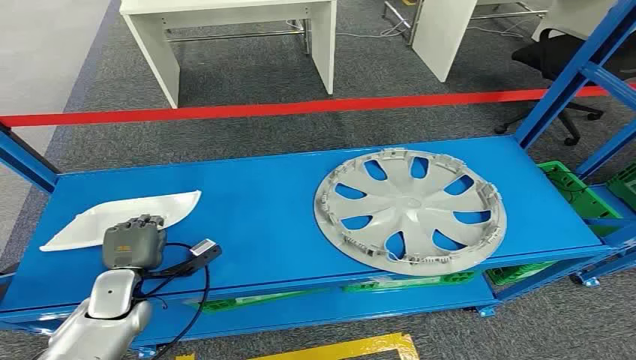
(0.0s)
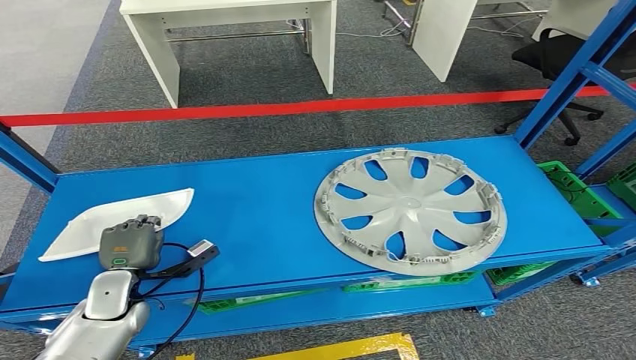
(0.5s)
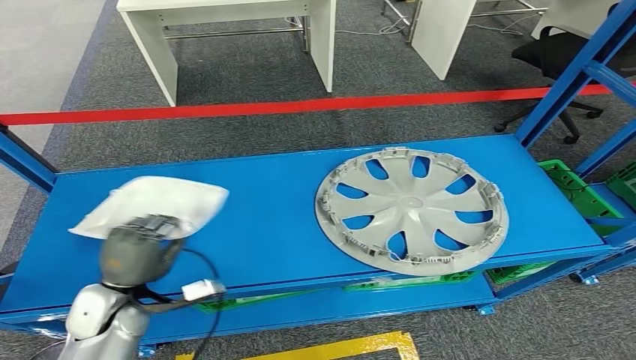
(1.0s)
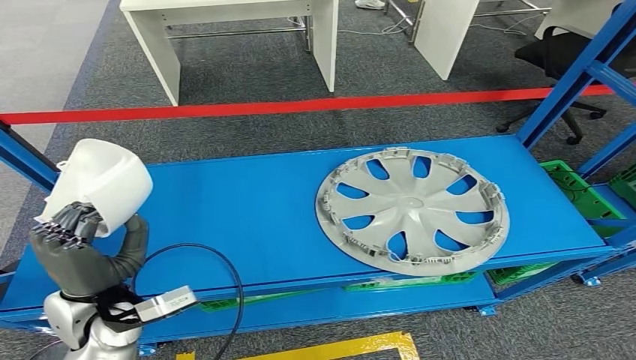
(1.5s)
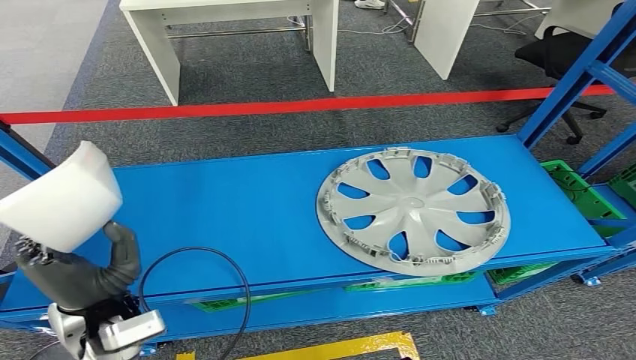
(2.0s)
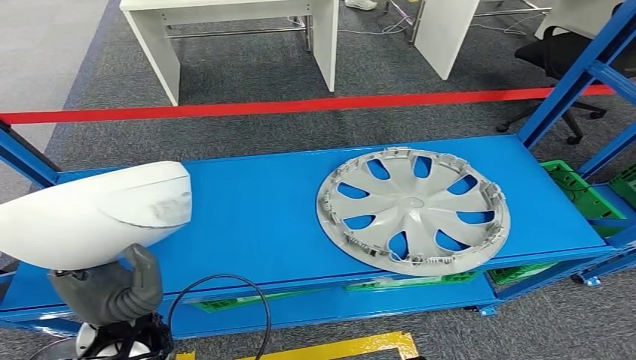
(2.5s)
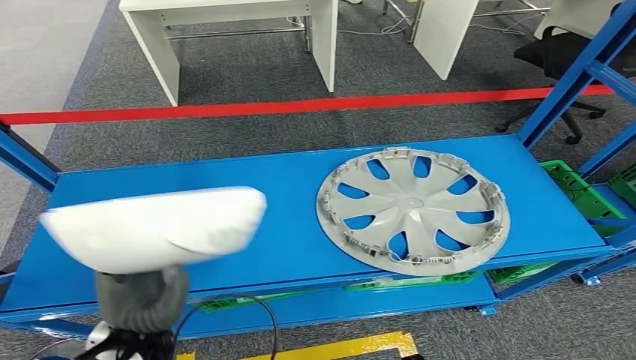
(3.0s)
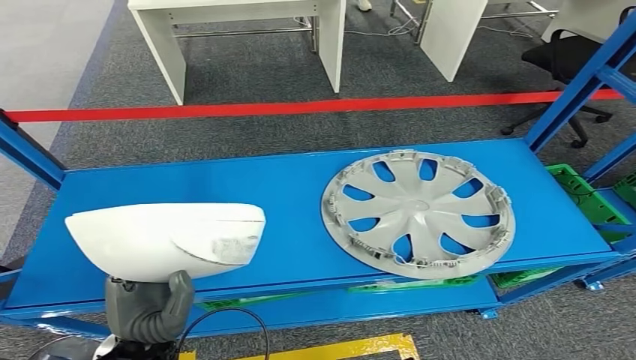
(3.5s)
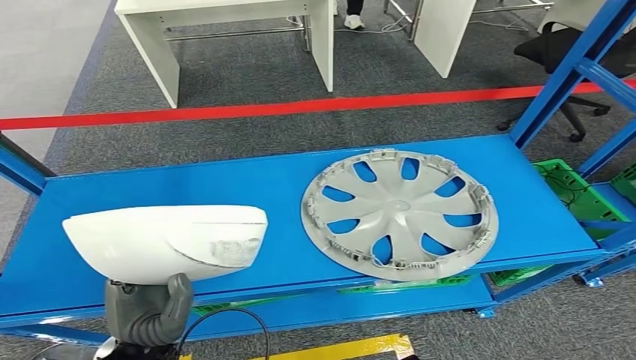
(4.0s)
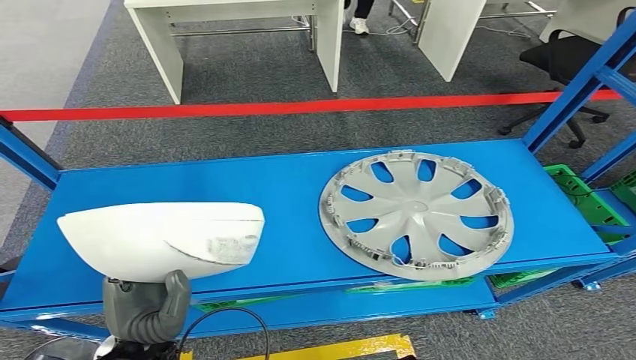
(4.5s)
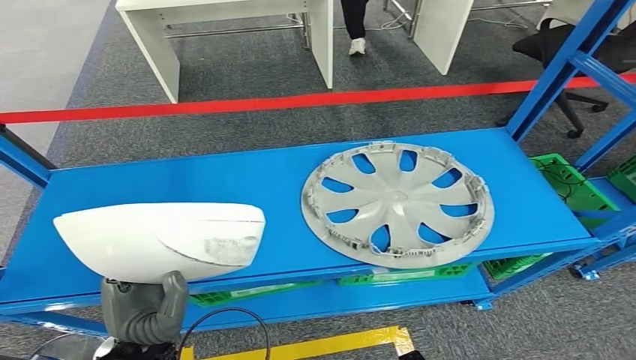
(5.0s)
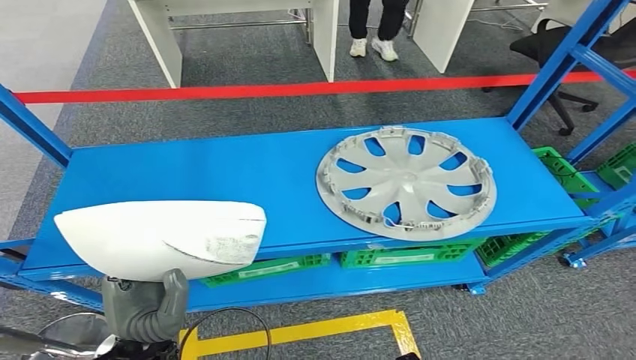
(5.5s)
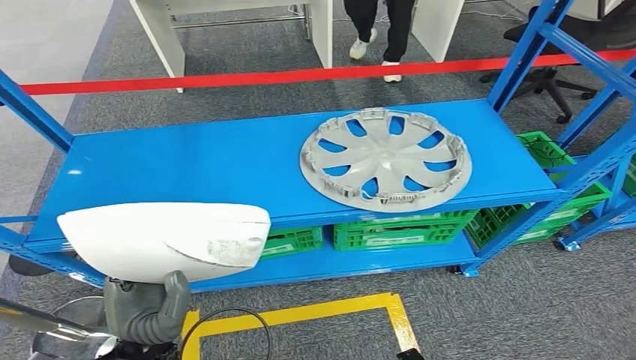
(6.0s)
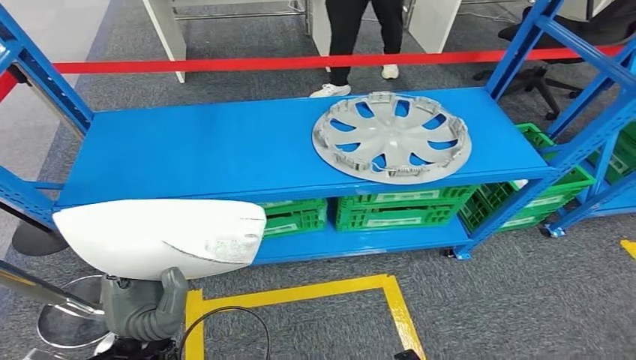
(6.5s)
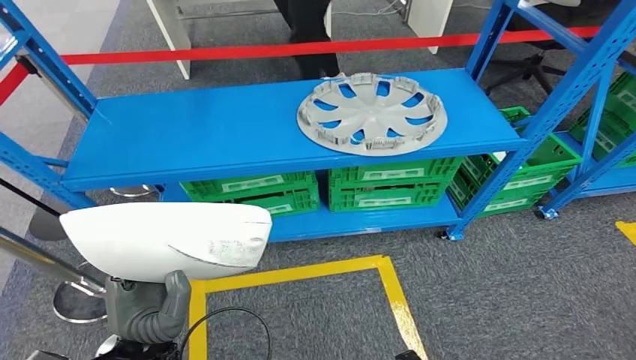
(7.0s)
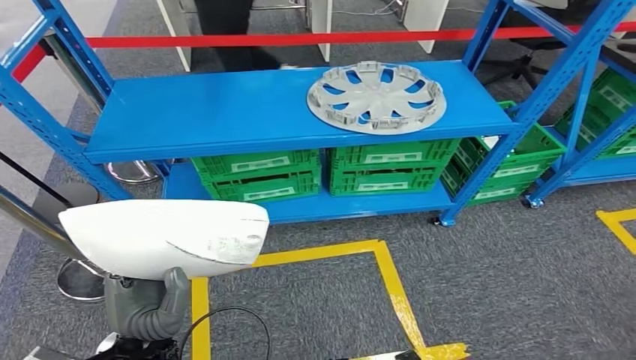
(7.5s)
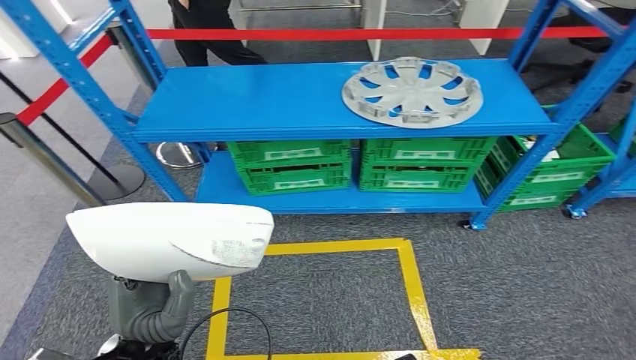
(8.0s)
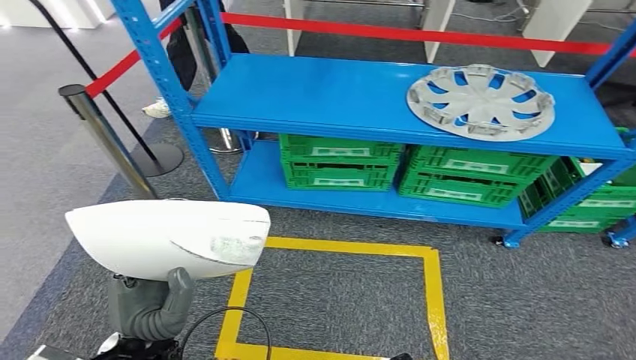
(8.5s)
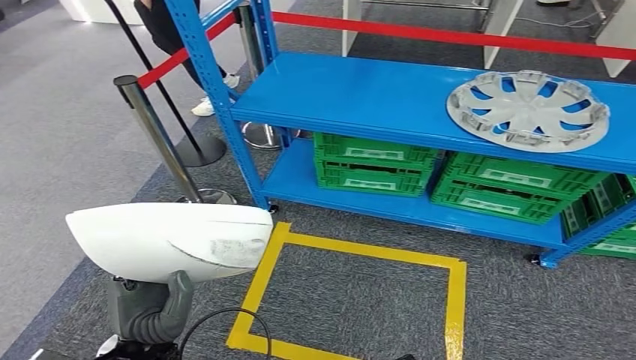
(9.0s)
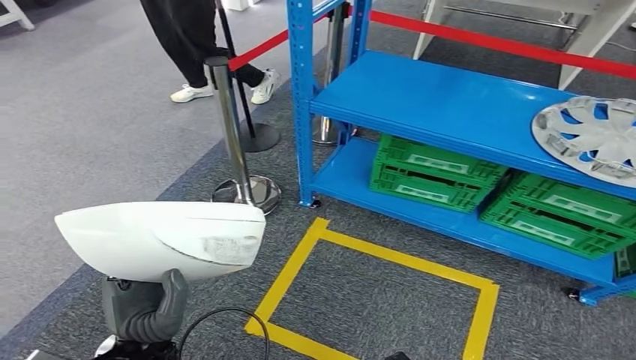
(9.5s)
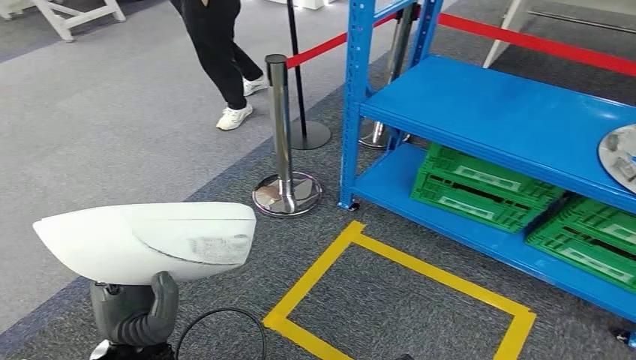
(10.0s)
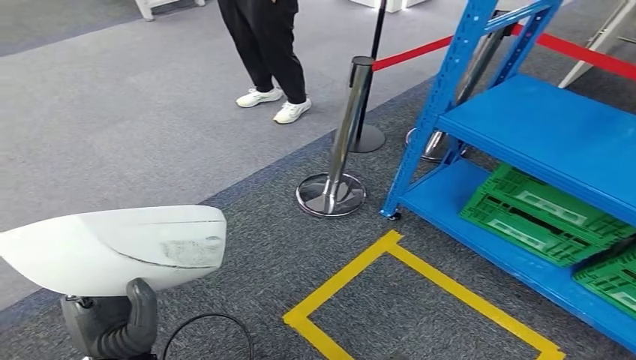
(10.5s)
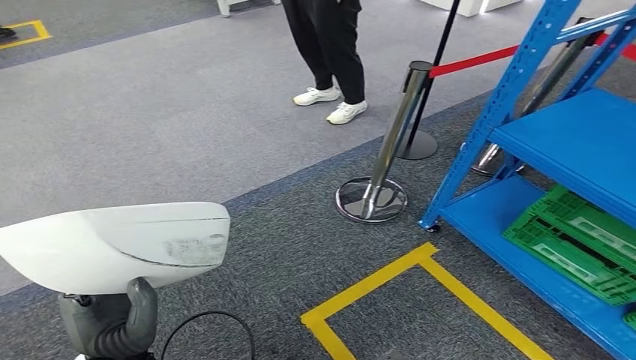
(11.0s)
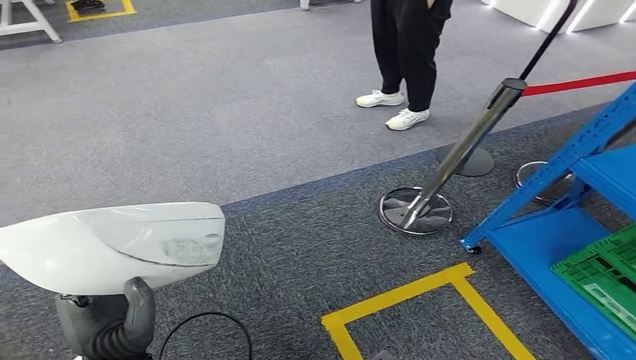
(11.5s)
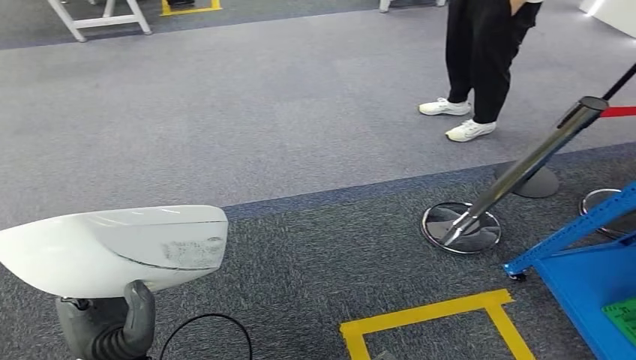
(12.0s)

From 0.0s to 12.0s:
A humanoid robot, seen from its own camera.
Step, from 0.0s to 3.5s: Pick up the small component from the shelf.

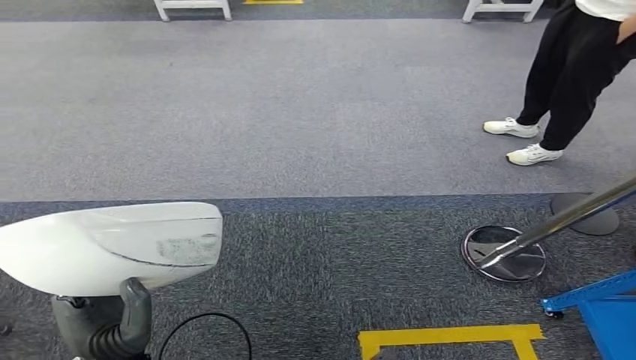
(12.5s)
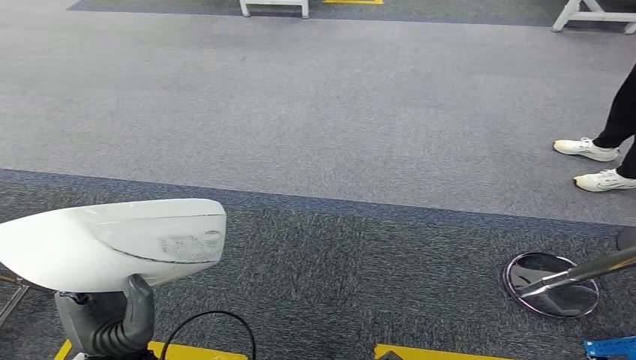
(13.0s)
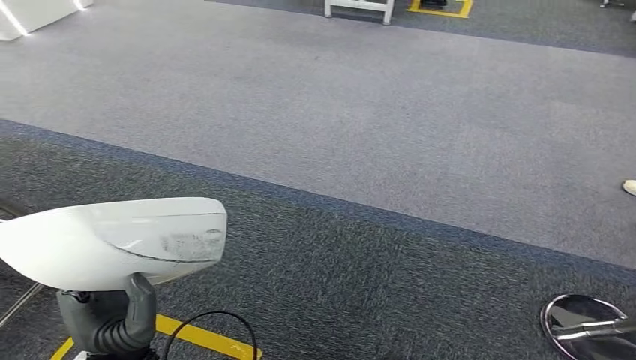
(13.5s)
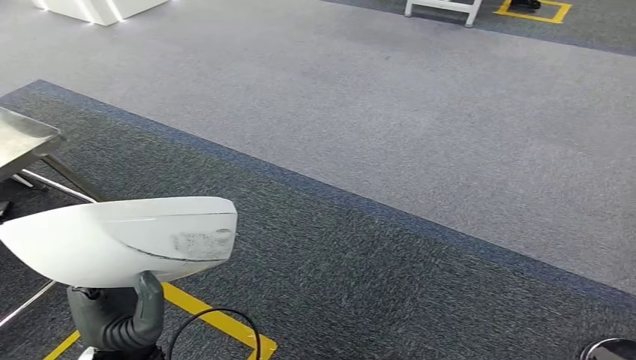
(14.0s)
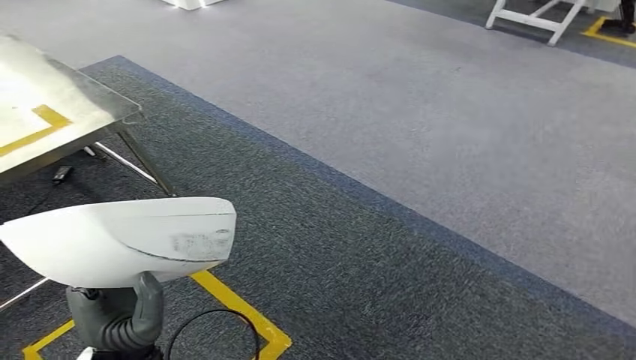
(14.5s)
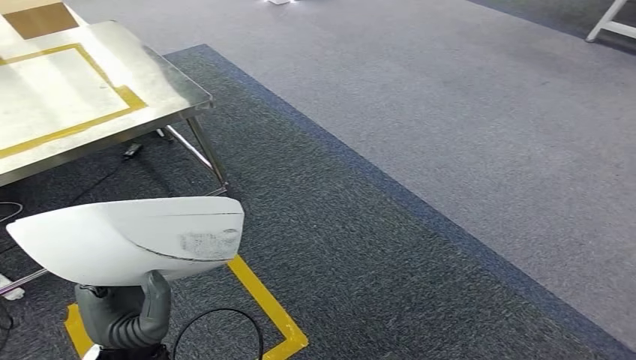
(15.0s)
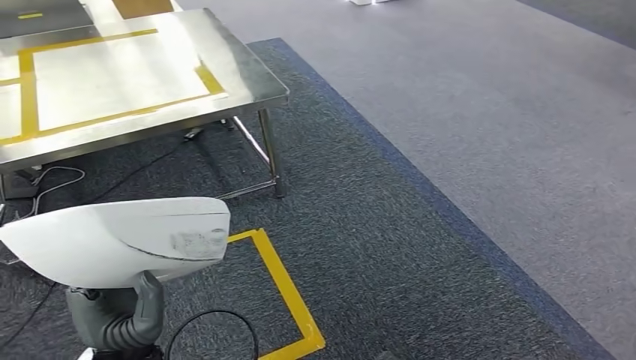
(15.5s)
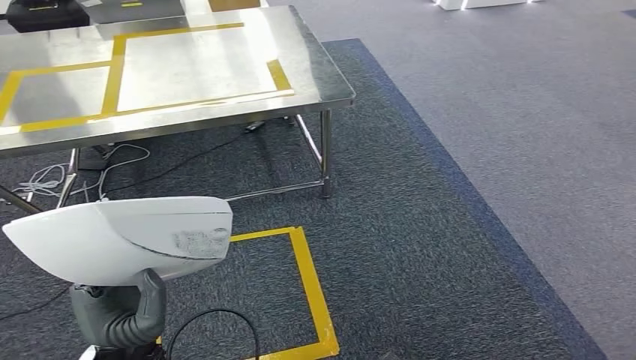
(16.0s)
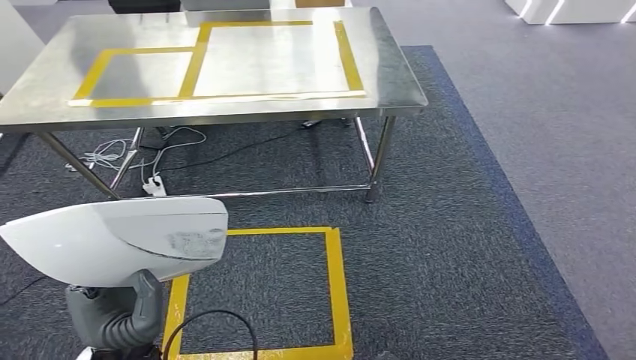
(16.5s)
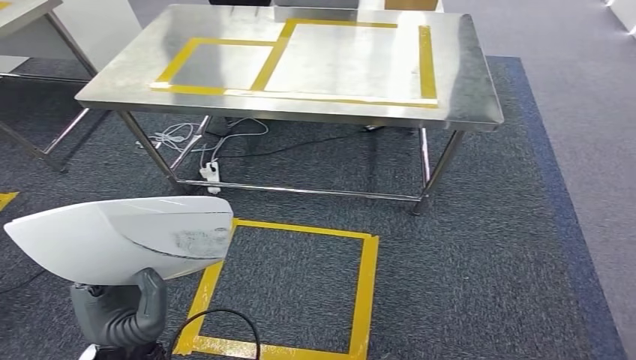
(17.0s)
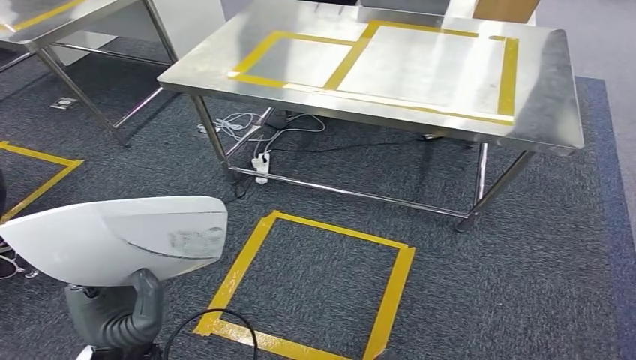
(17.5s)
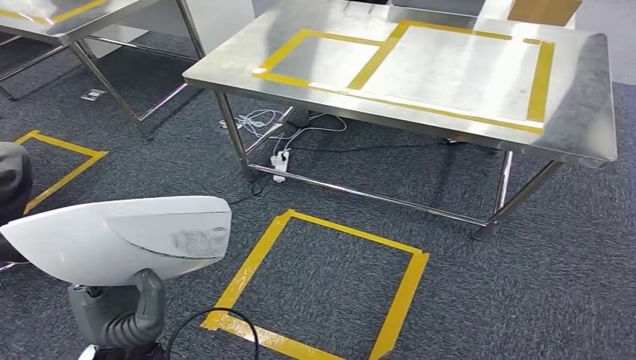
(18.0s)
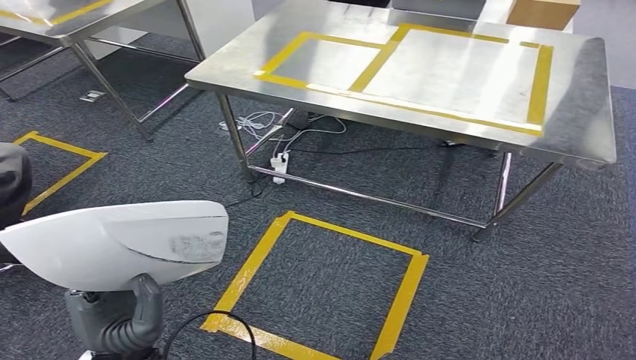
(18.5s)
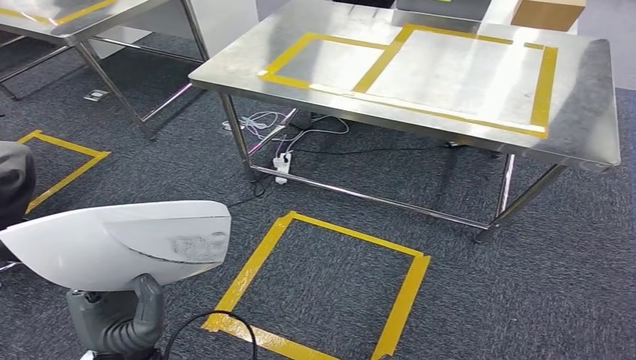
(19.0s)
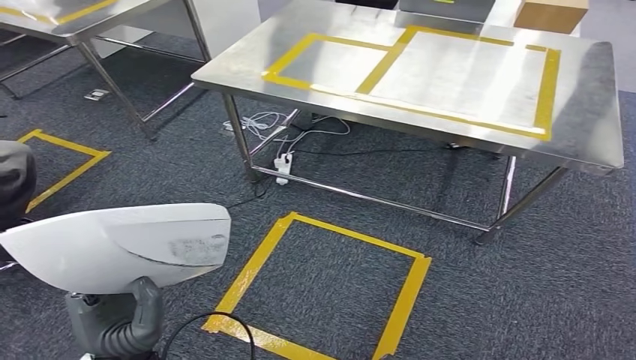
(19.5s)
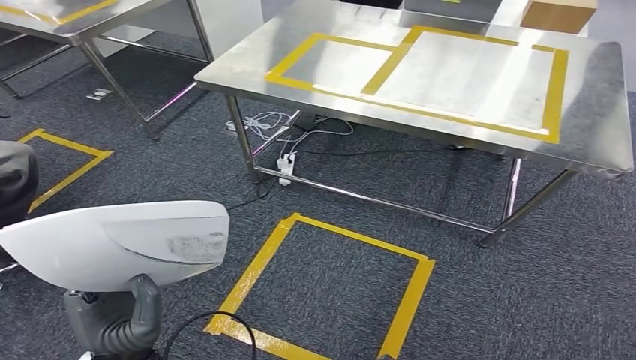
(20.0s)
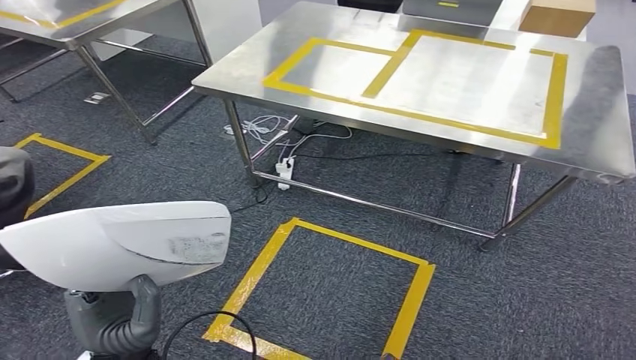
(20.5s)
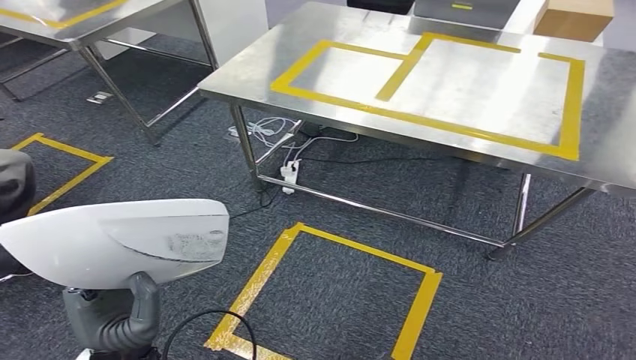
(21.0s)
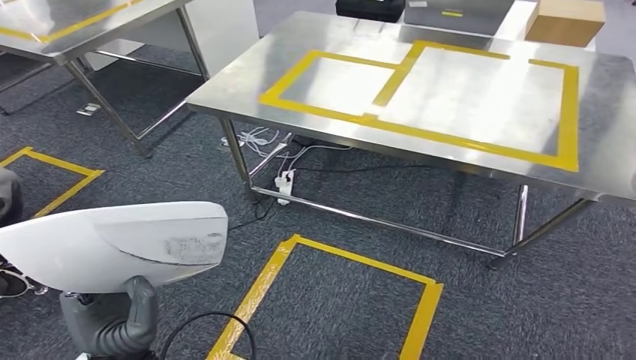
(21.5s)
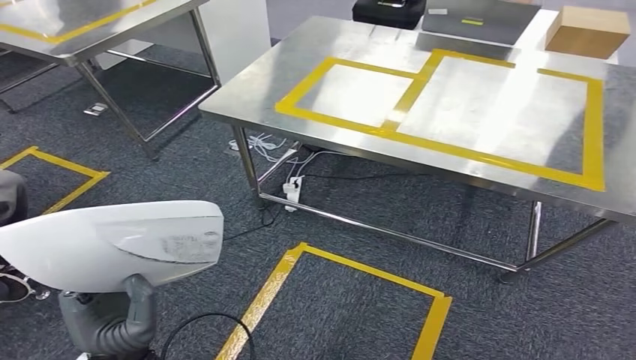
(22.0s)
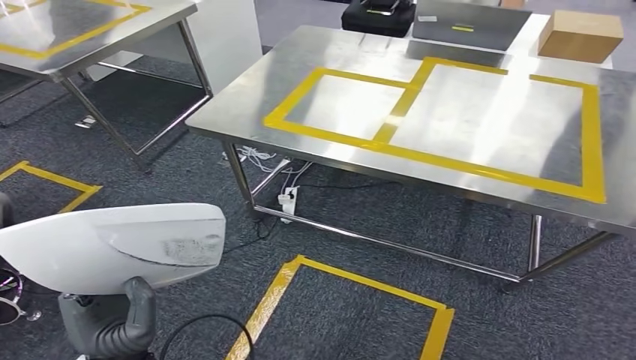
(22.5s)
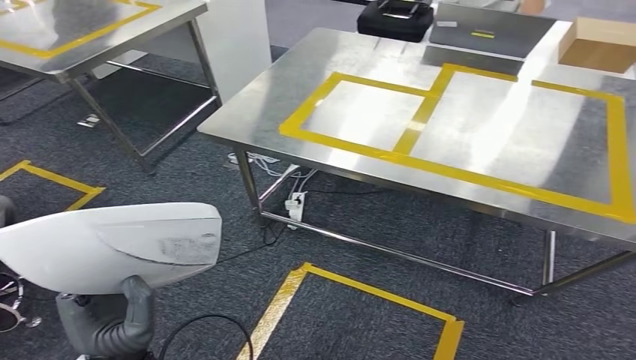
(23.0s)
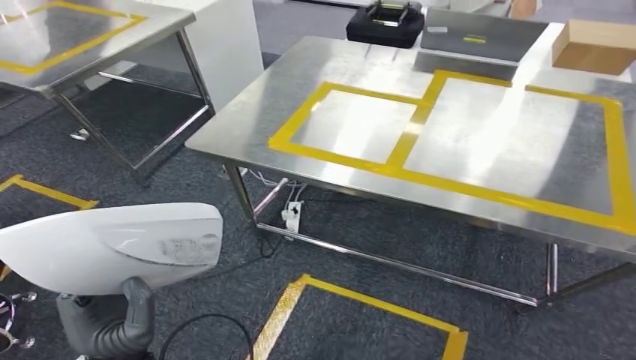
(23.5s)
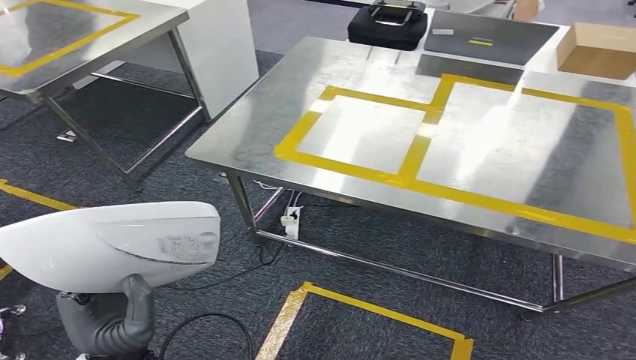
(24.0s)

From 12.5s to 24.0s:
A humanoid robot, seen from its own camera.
From 18.5s to 20.0s: Both hands stay put.
